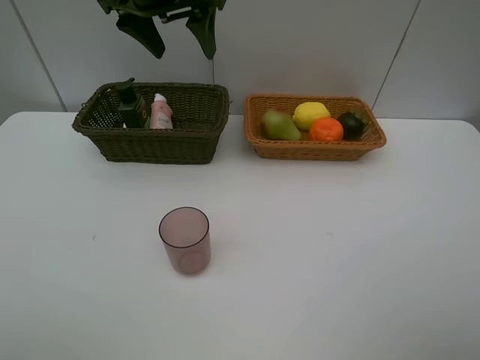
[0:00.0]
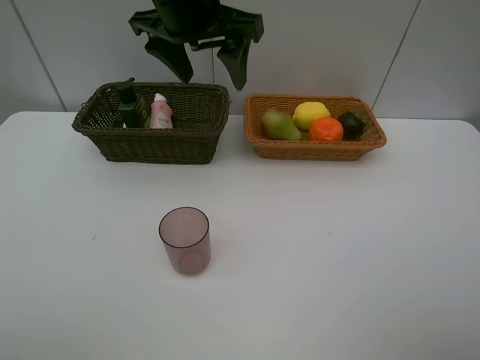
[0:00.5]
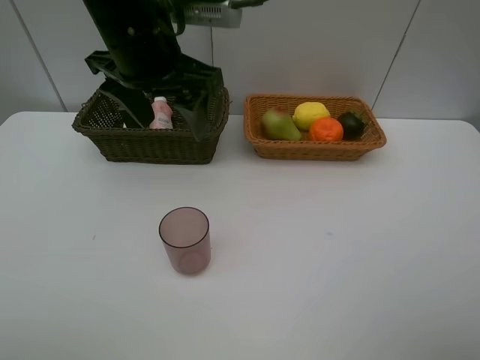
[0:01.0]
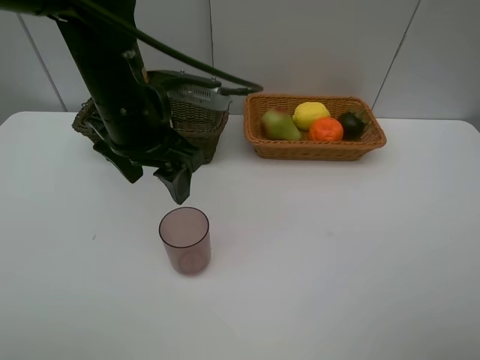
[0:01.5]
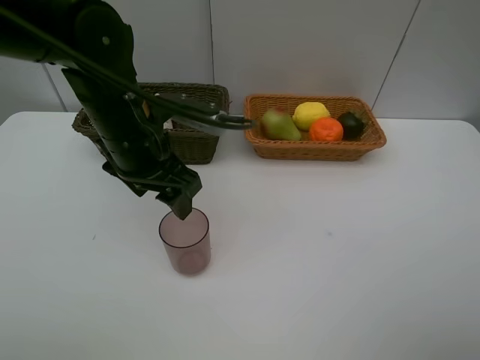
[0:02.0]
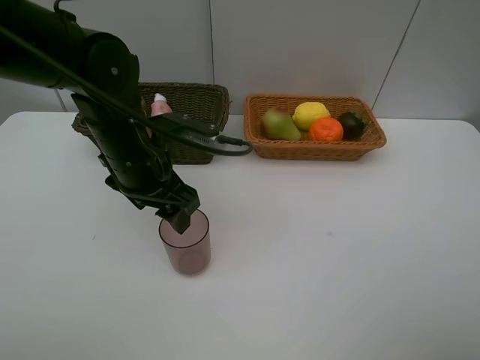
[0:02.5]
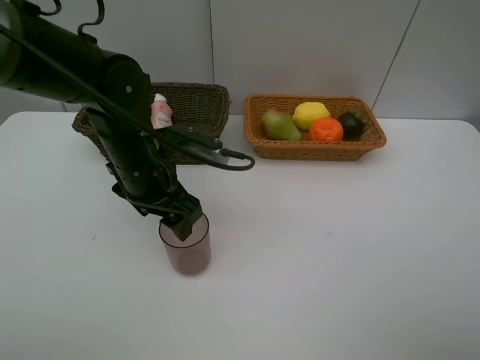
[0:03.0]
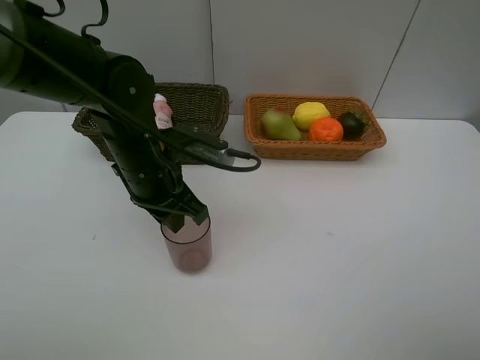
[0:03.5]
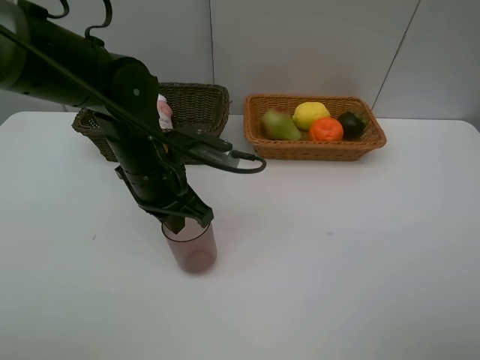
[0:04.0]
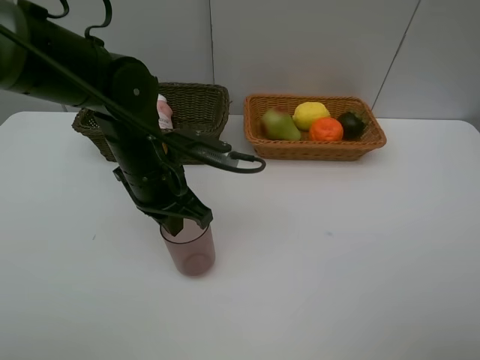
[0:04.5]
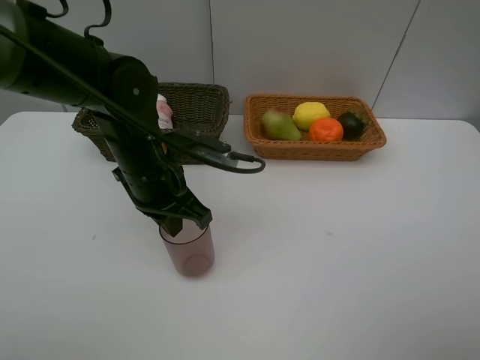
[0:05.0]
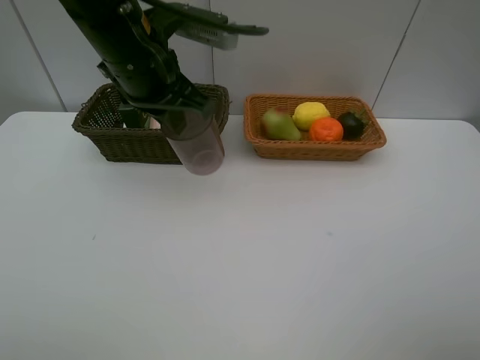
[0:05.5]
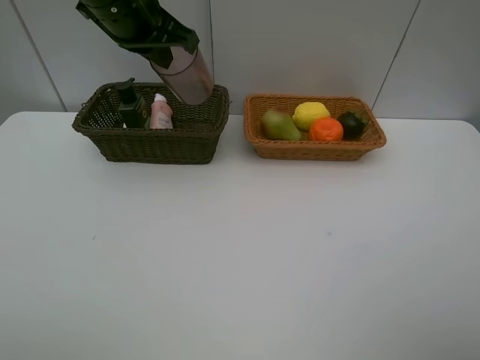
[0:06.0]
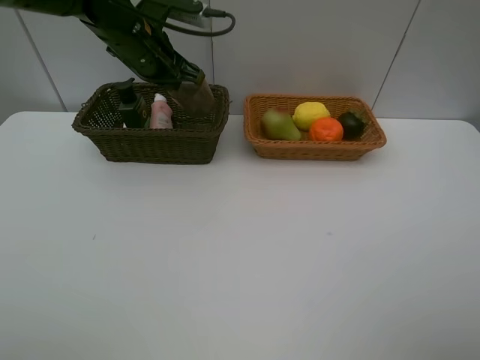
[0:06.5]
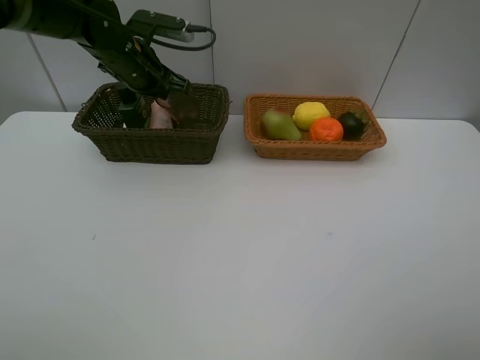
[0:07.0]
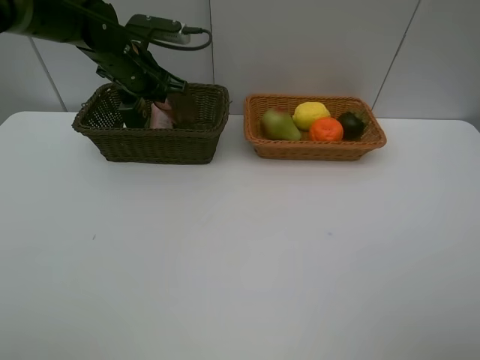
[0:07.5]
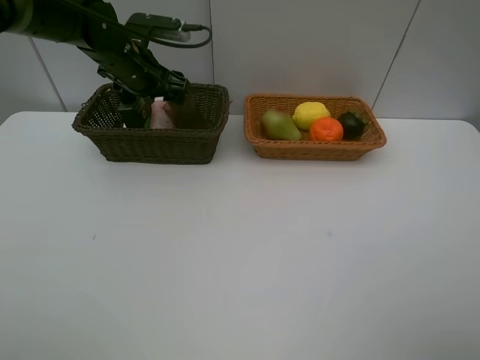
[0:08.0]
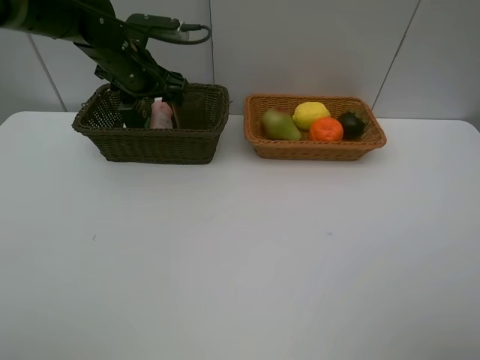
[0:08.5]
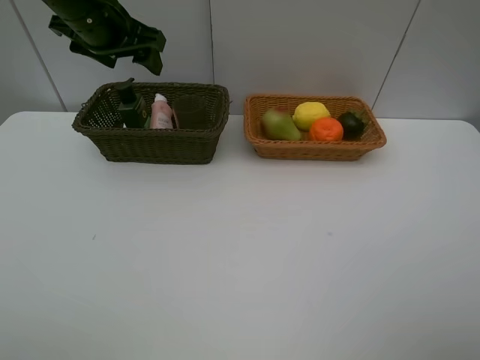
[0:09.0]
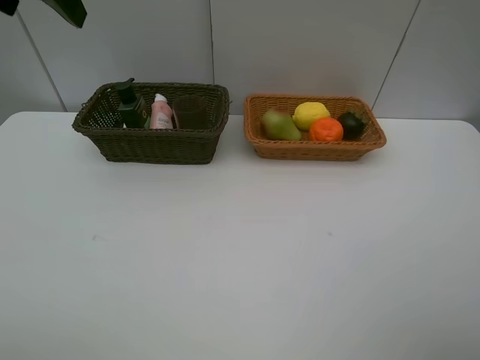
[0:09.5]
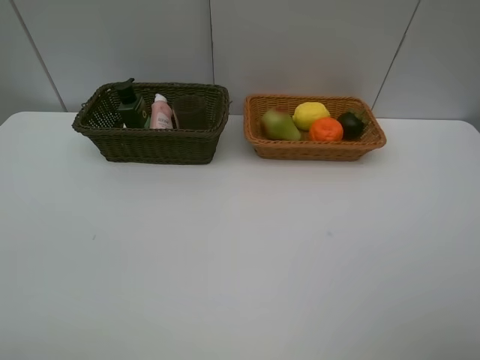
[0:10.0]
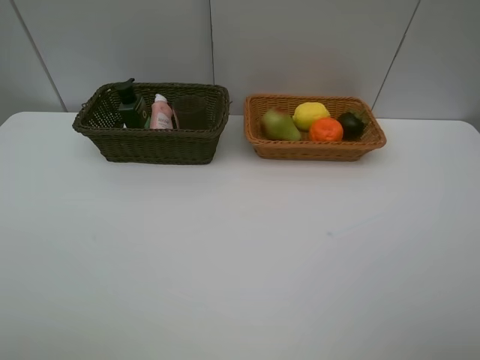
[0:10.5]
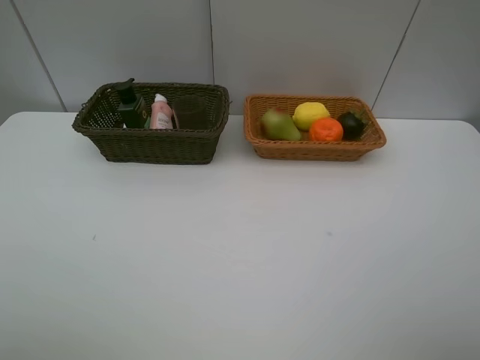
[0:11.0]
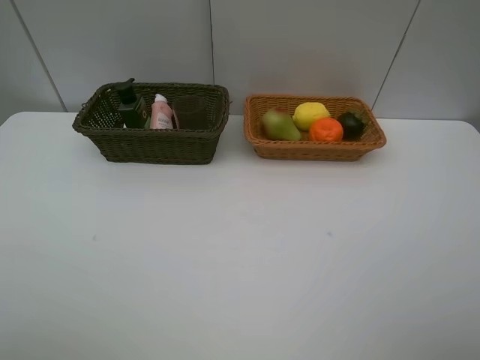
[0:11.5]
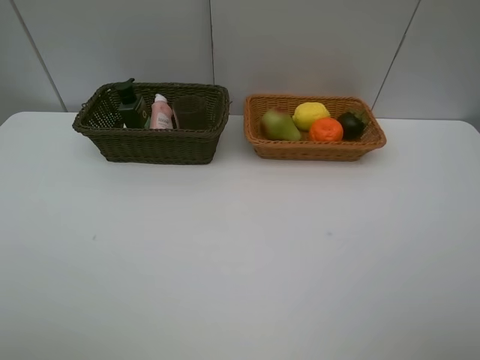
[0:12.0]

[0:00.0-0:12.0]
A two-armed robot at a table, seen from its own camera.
Task of the whole recording: Place multiple objects separately in different baskets.
Step, 0:00.0 to 0:05.0: Pick up the red cup with left gripper.
Step, 0:05.5 to 0:08.5: Place the red cup in the dark basket with left gripper.
0:00.0 to 0:02.0: The left gripper shifts roughly 20 cm downward and backward.
0:02.0 to 0:04.0: The left gripper closes up.
0:04.0 to 0:06.0: The left gripper goes roughly 20 cm upward and forward.
0:06.0 to 0:08.0: The left gripper travels downward and forward by roughly 15 cm, and opens its fingers.
0:08.0 to 0:10.0: The left gripper travels backward and upward by roughly 35 cm.

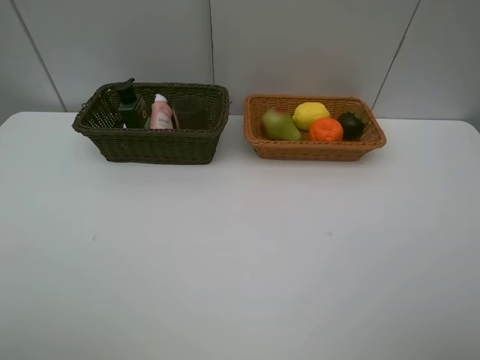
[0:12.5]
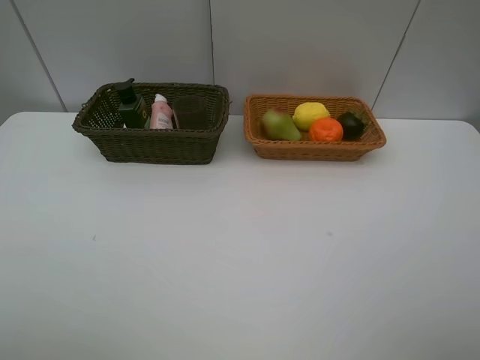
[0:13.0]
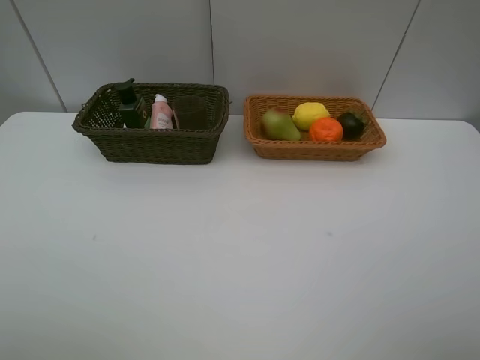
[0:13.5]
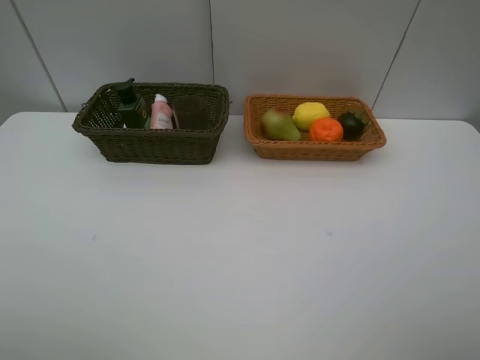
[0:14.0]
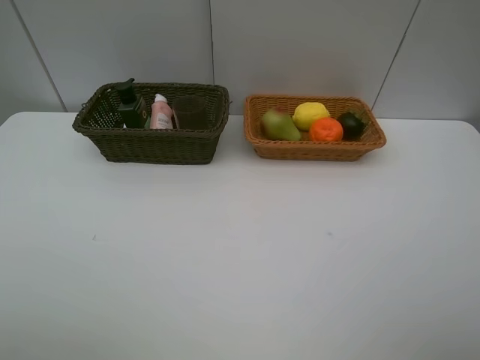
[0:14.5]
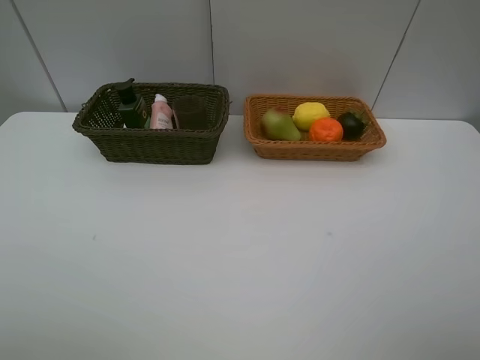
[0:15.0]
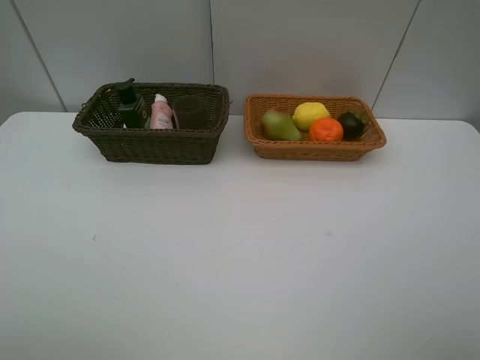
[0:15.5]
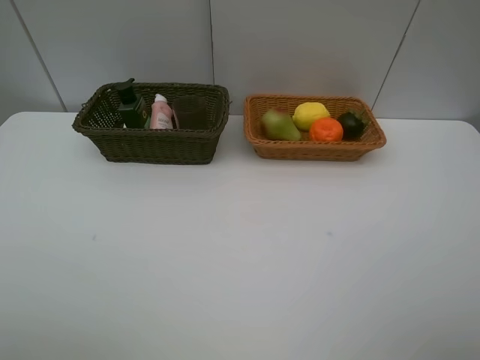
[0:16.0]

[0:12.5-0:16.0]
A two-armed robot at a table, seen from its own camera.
Task of the whole recording: Place multiple objects separately in different baskets.
0:14.5 to 0:16.0: Both grippers stay about where they are.

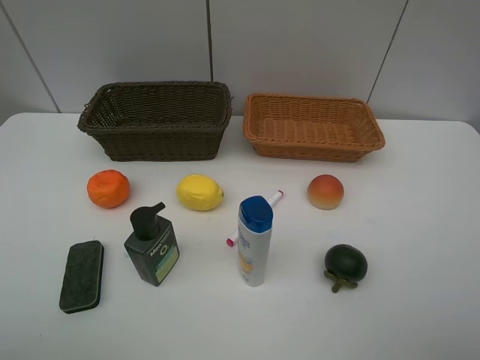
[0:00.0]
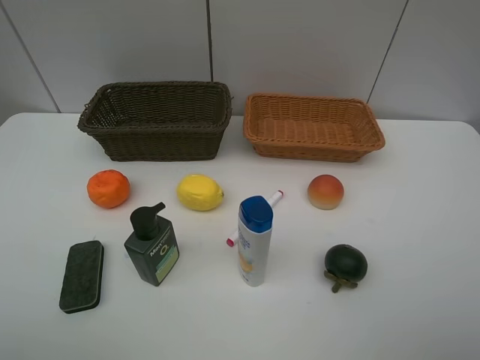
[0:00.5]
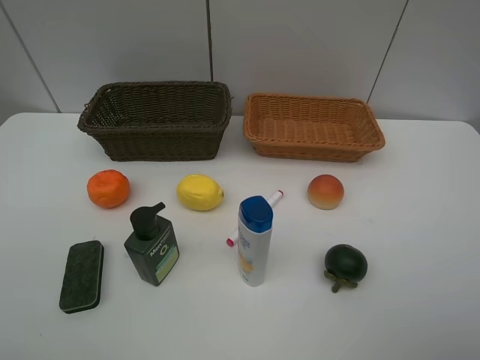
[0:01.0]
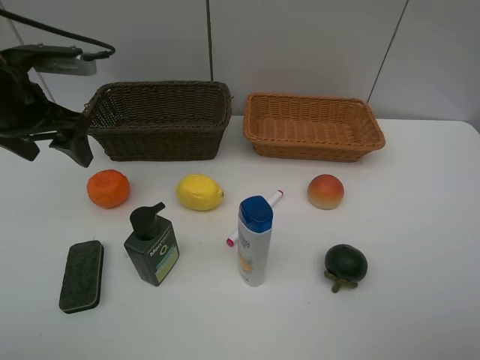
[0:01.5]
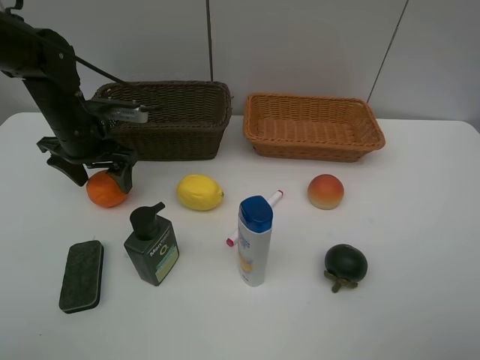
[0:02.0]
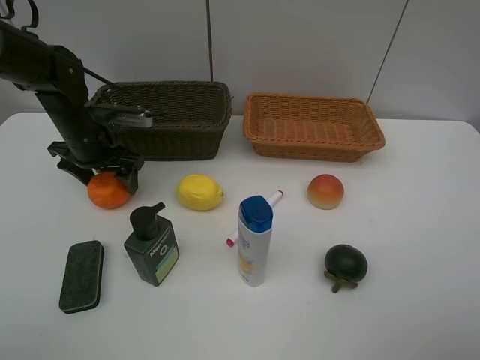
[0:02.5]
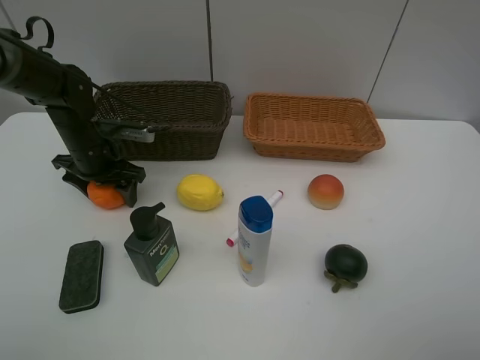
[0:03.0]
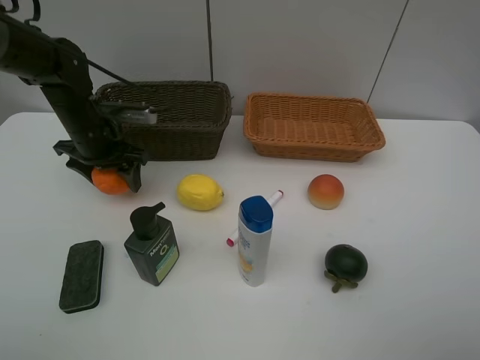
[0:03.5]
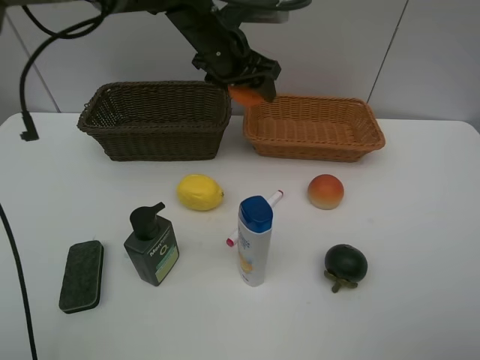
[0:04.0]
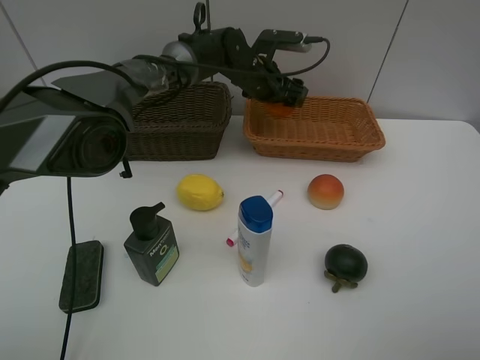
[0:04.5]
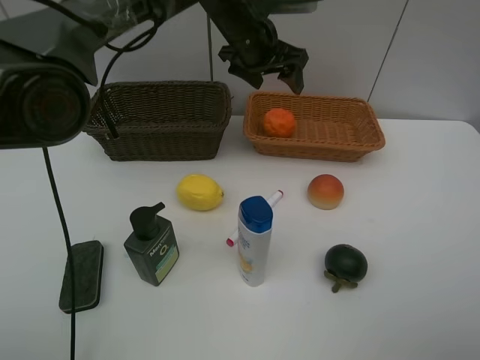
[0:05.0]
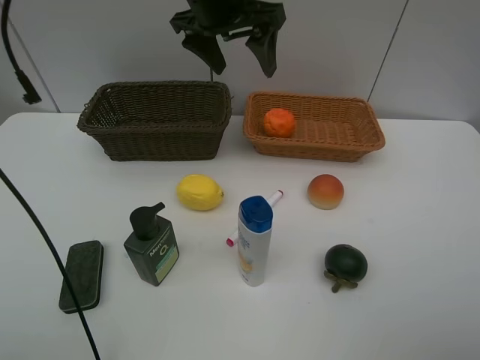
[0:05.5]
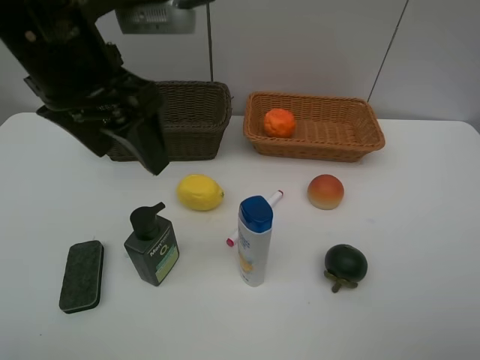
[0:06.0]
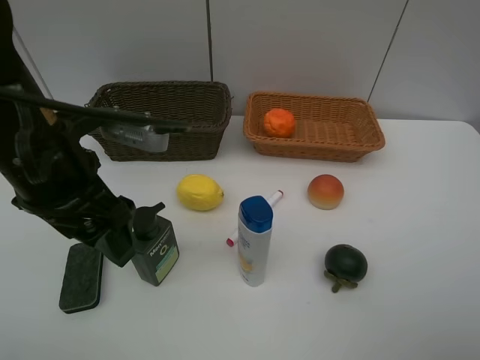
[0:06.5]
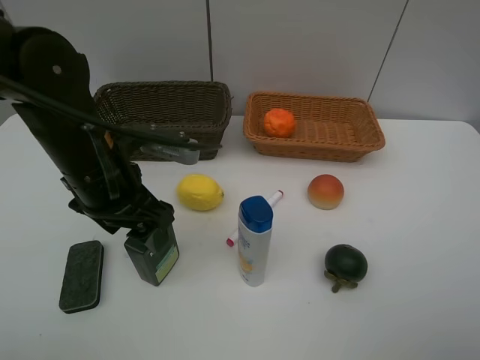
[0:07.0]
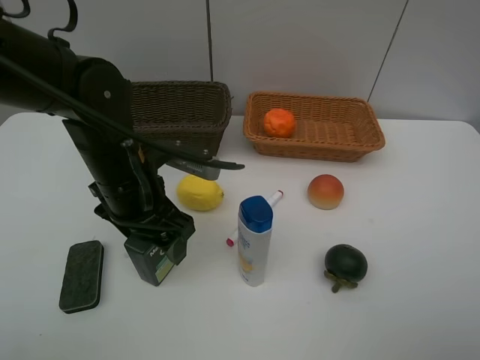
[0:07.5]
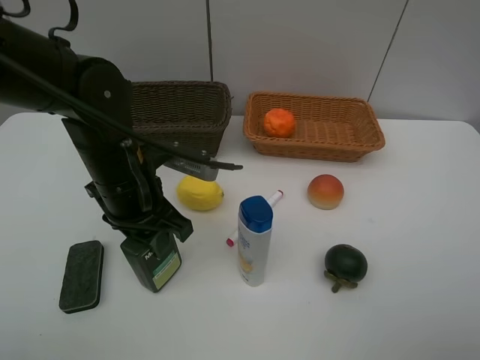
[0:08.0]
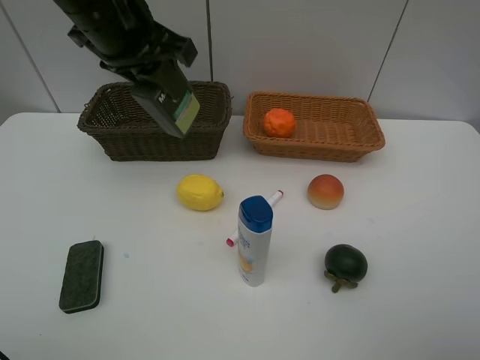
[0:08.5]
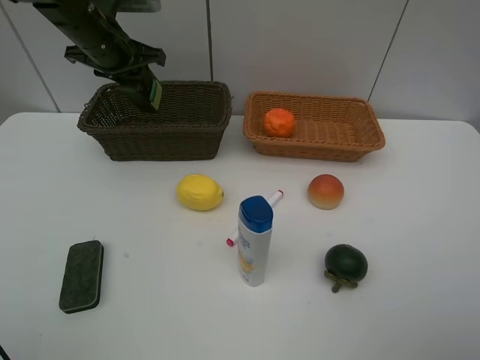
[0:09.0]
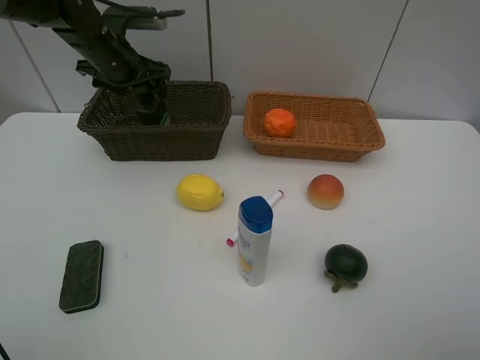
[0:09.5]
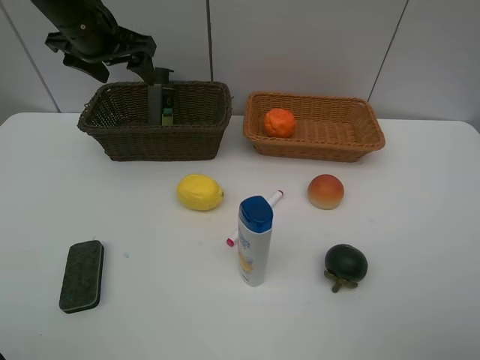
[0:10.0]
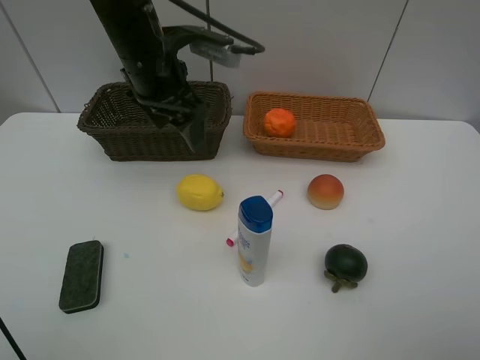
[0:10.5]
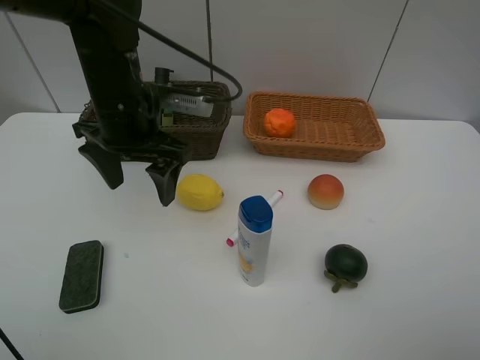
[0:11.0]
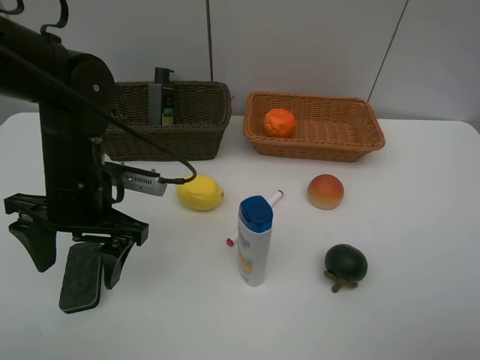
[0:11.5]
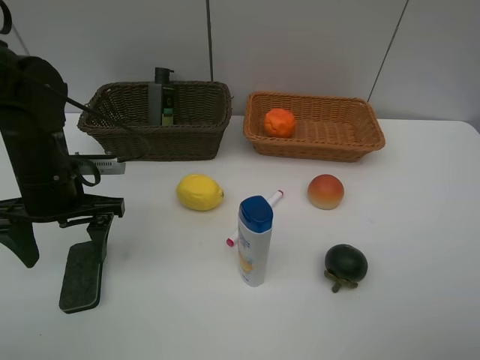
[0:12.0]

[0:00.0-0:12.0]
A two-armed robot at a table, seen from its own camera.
Task of the whole recording: Place multiple objects separately in different baskets.
Step, 0:00.0 to 0:03.5: Pick up the orange with left gripper.
Step, 0:04.0 to 0:04.5: Place the orange in the light basket with left gripper.
Step, 0:05.0 to 0:08.0: Pick up the hard facial cleanser with left gripper.
Step, 0:08.5 to 0:09.5: Place the hard facial cleanser in the dark basket with left gripper.
0:00.0 to 0:02.0: The left gripper shifts roughly 35 cm forward.
0:02.0 to 0:04.0: The left gripper is displaced to the right and upward by roughly 20 cm.
0:04.0 to 0:06.0: The left gripper is displaced backward, to the left and upward by roughly 25 cm.
0:06.0 to 0:08.0: The left gripper is displaced downward by roughly 15 cm, and closes.
0:08.0 to 0:10.0: The left gripper moves forward, upward and to the left, some 20 cm, and opens.
0:10.0 to 0:12.0: The left gripper moves backward and downward, some 20 cm.
